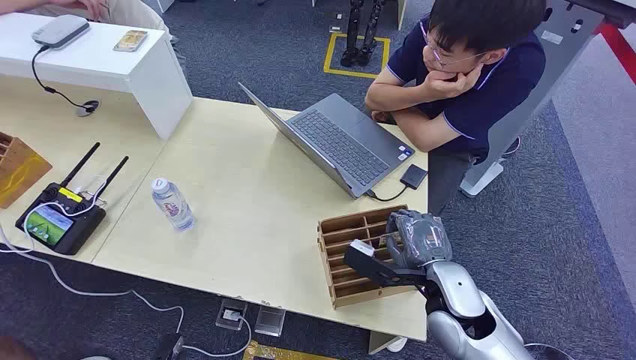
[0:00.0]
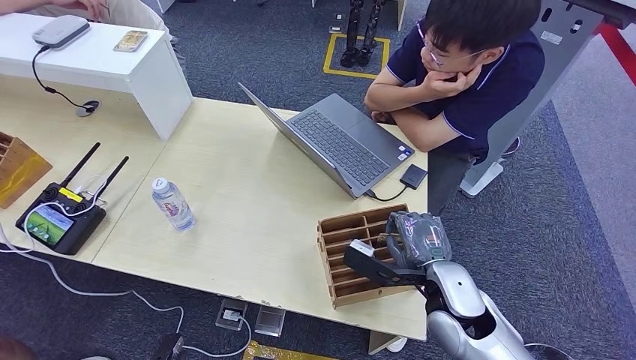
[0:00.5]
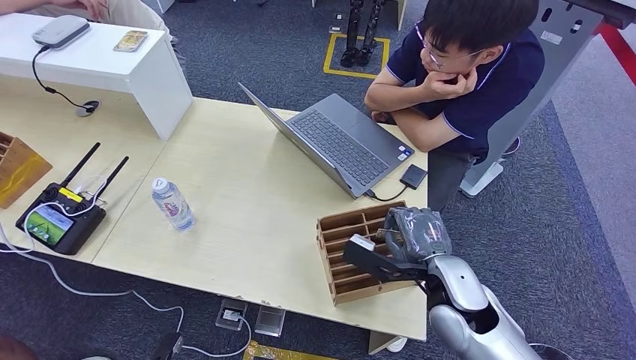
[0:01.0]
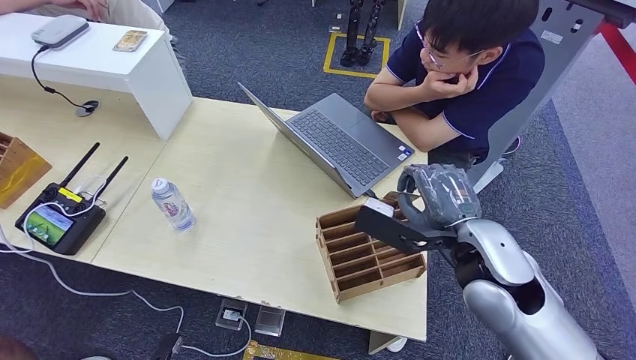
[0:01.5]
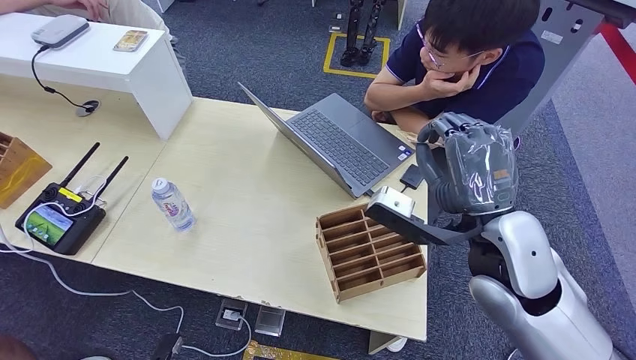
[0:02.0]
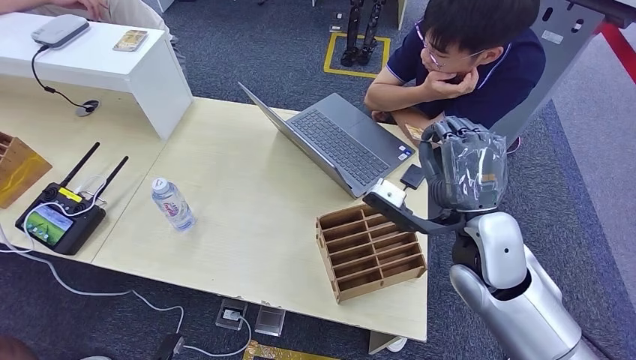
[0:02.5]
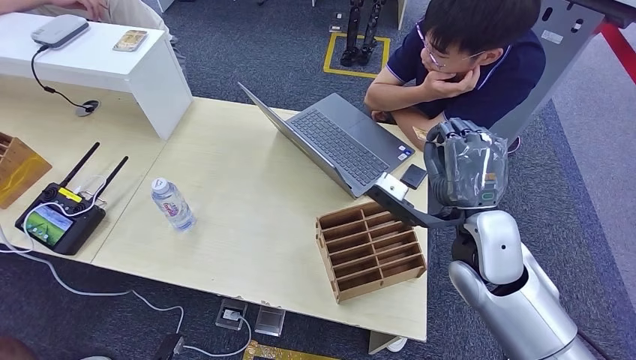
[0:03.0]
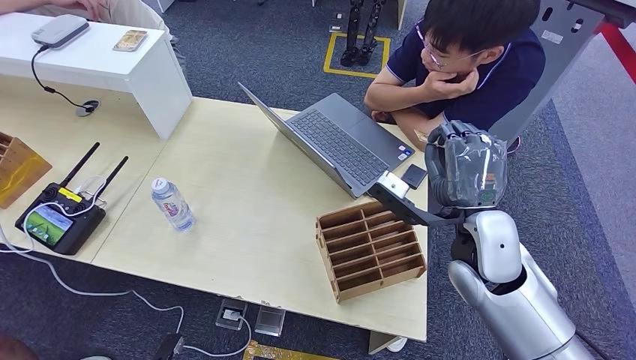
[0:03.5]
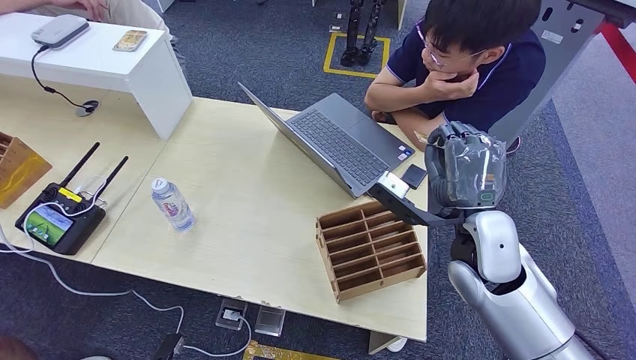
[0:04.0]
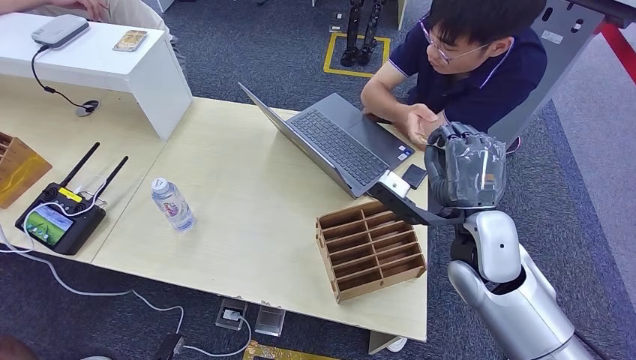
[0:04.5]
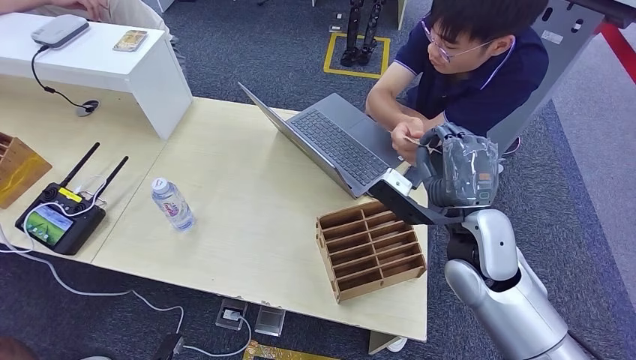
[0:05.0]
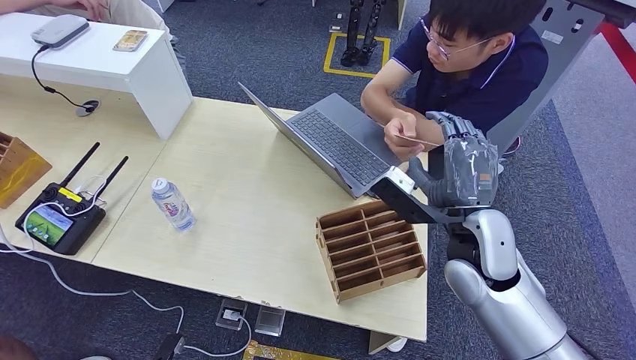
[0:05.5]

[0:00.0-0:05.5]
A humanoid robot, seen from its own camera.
Step, 0:00.0 to 0:01.5: Pick up the room card from the card holder.
Step, 0:02.0 to 0:05.5: Hand the room card to the target.
0:02.0 to 0:03.5: The right hand goes roughly 5 cm downward.
0:03.5 to 0:05.5: There are only small adjustments of the hands.

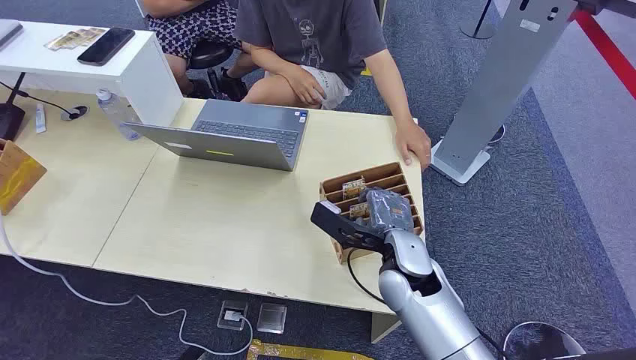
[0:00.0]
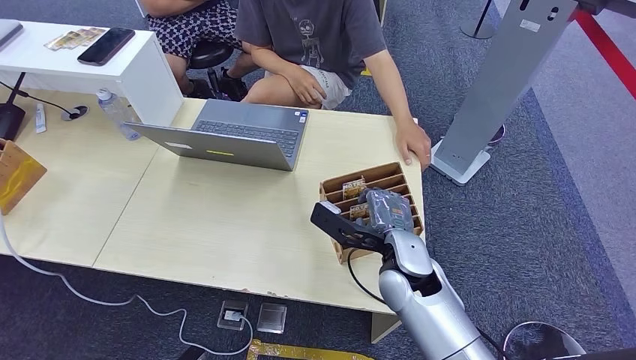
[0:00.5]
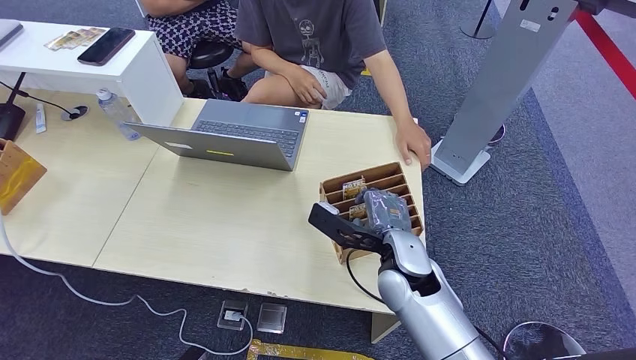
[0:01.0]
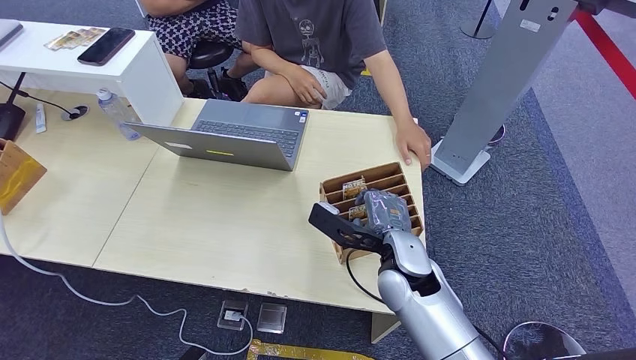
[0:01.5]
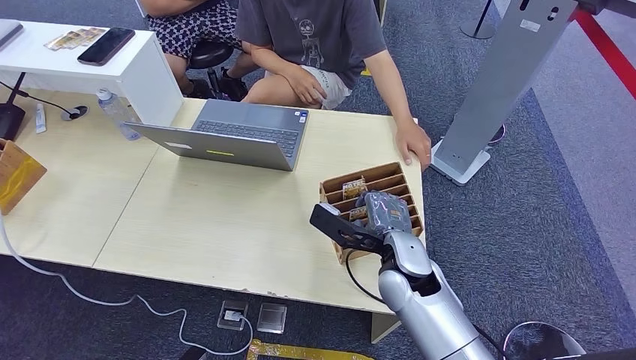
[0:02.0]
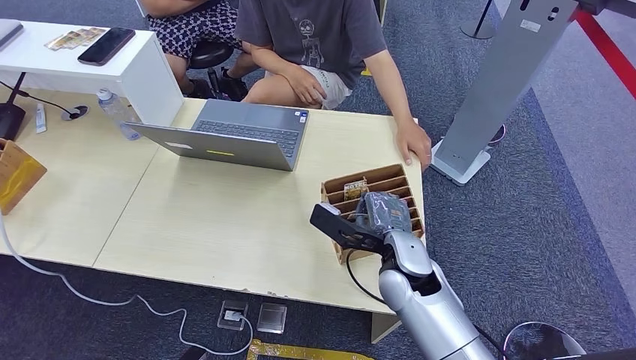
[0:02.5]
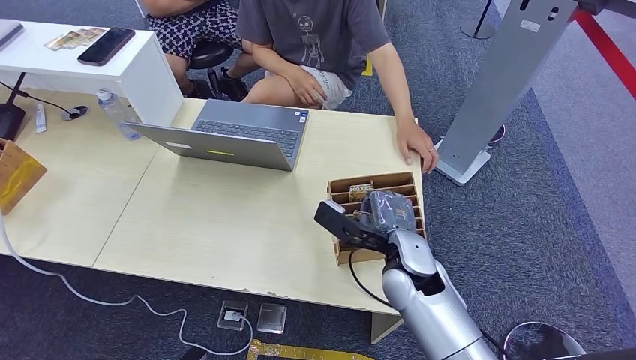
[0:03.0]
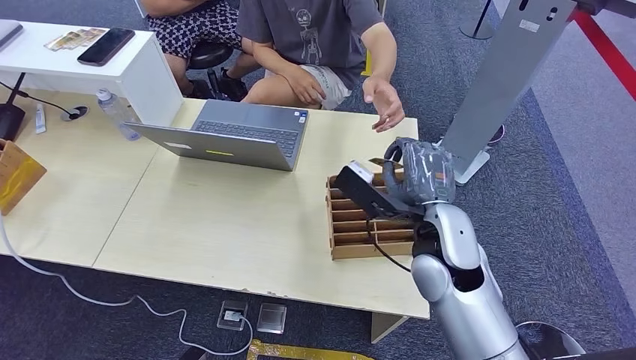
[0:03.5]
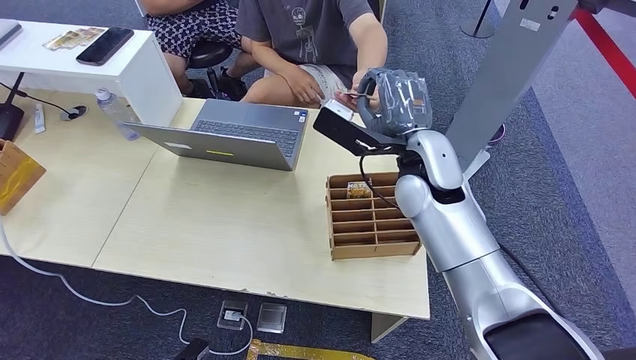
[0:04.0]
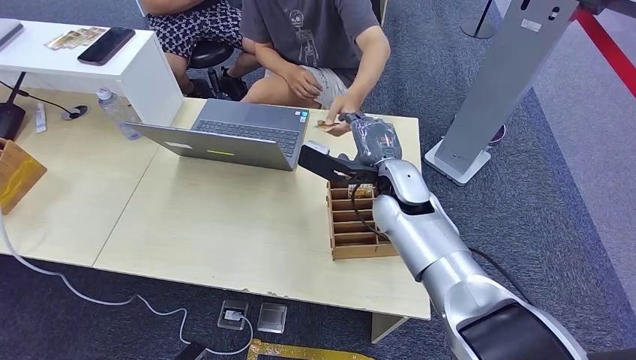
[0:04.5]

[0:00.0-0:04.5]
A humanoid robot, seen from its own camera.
Step, 0:00.0 to 0:03.0: Pick up the room card from the card holder.
Step, 0:03.5 to 0:04.5: Hand the room card to the target.
0:02.0 to 0:04.5: The right hand travels forward and upward by some 15 cm.

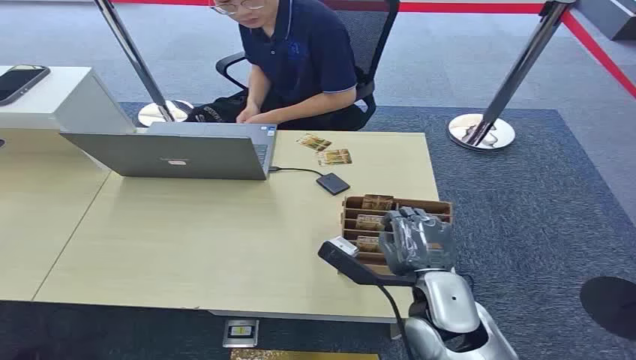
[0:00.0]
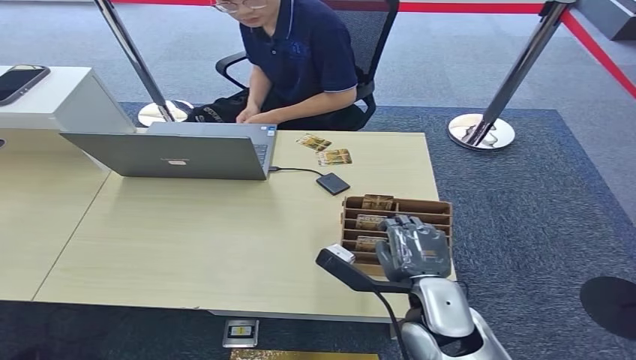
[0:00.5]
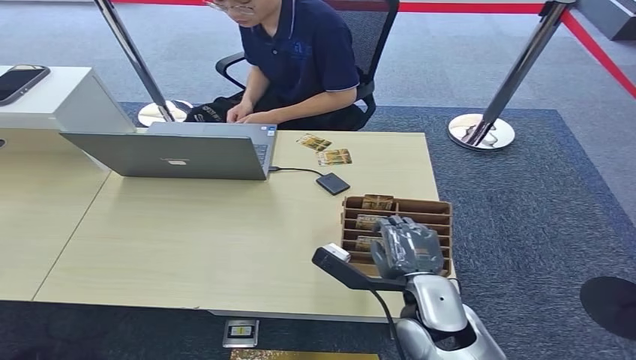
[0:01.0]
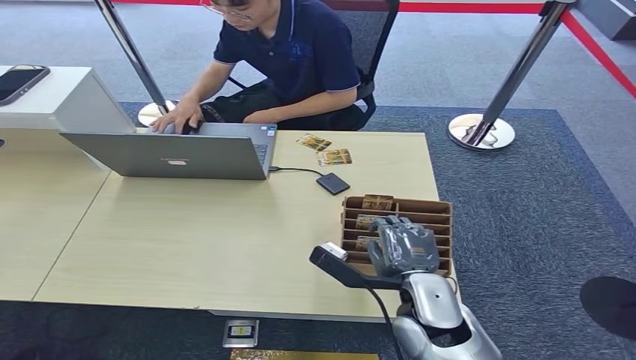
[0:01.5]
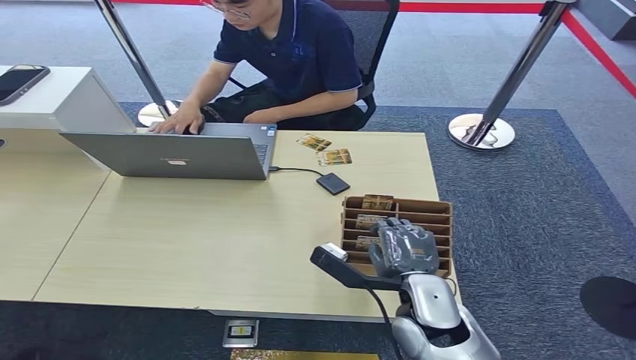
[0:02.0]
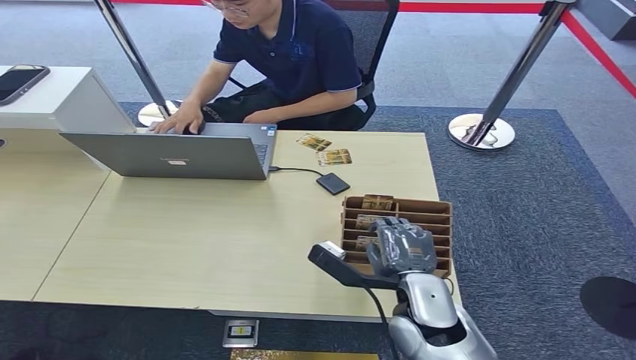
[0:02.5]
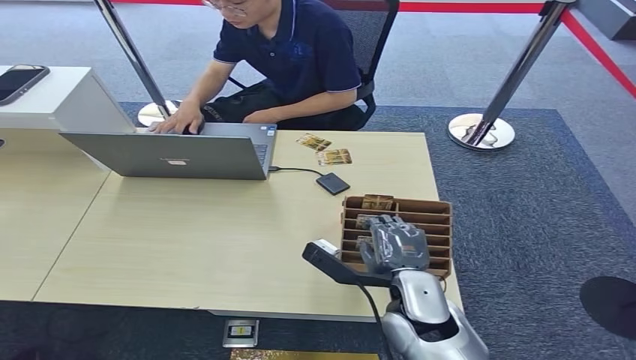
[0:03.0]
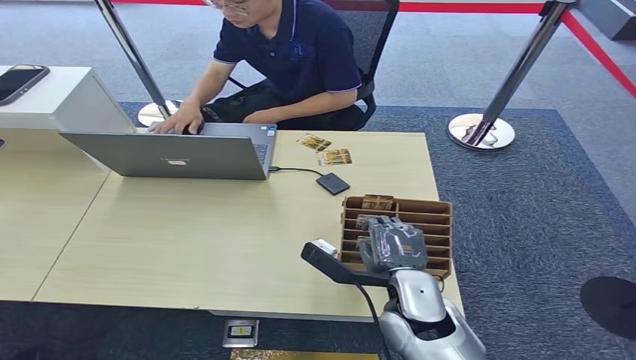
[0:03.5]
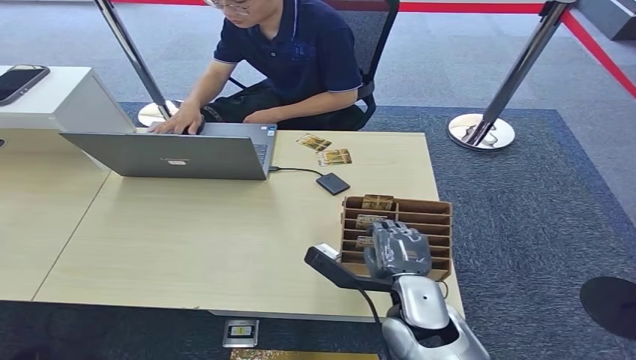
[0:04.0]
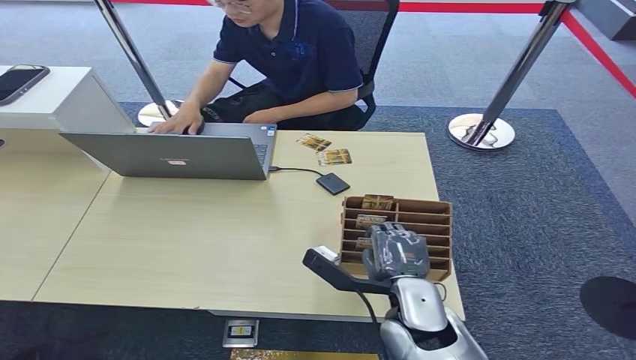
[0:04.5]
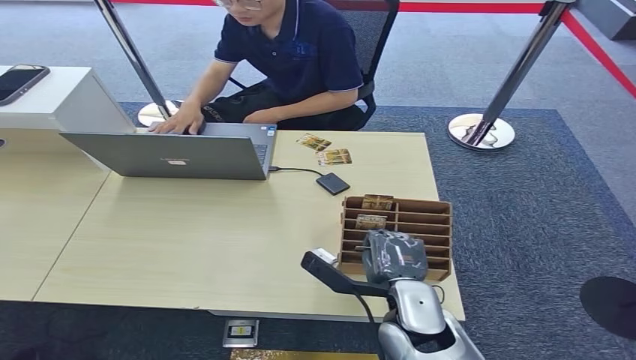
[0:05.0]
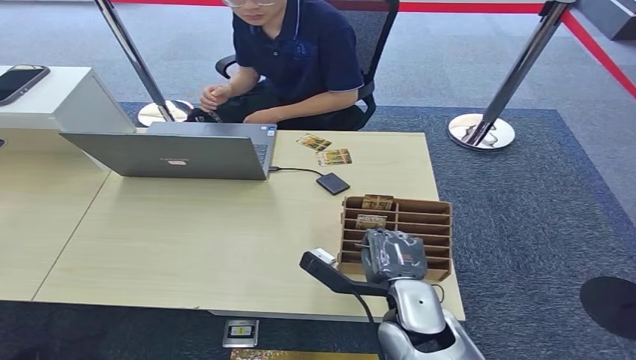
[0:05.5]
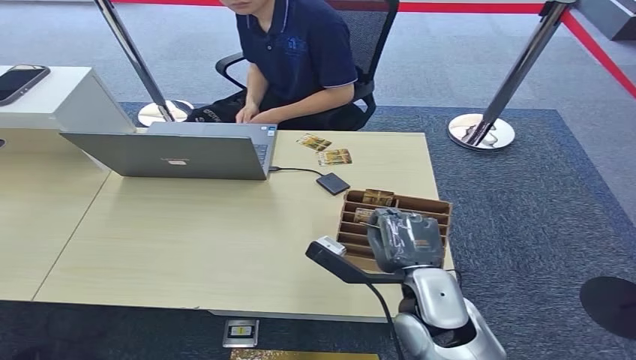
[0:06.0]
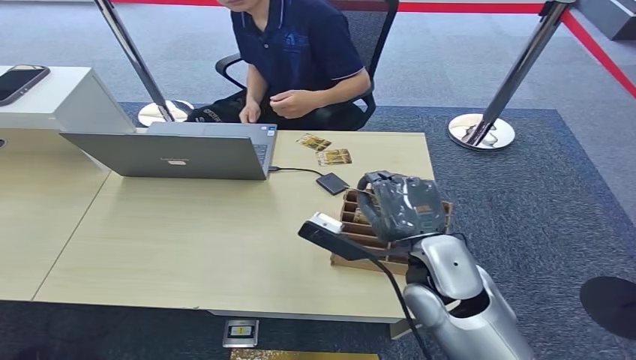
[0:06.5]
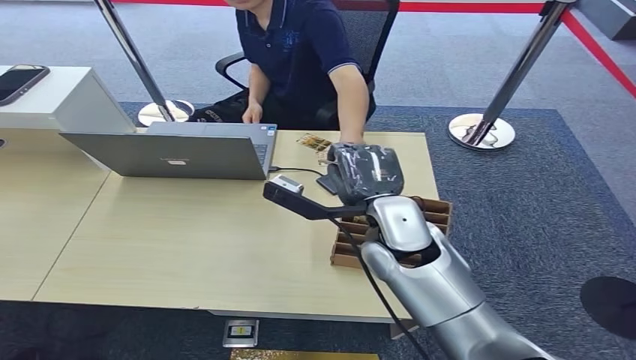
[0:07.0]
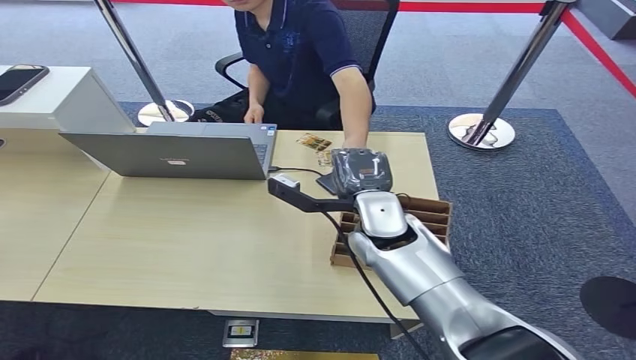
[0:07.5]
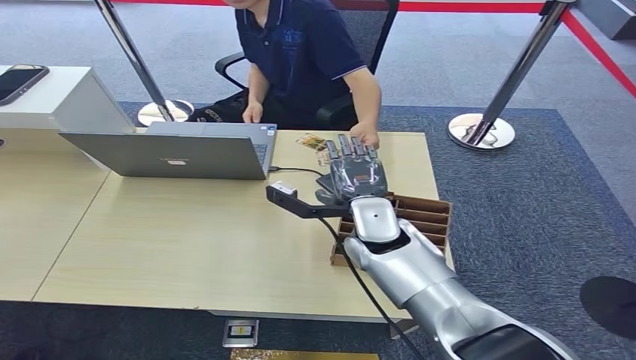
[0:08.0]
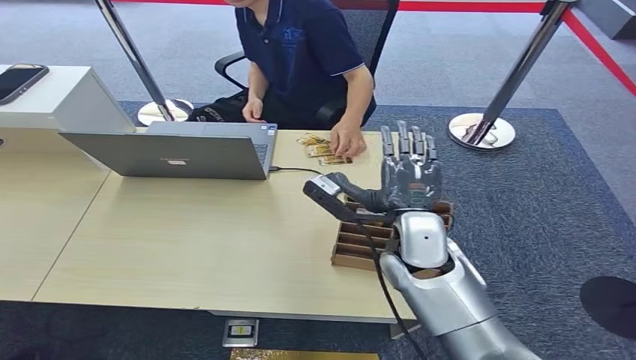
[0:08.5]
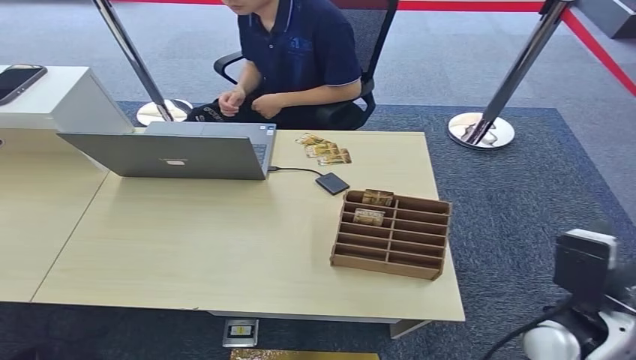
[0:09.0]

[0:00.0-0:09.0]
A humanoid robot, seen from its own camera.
Step, 0:00.0 to 0:05.5: Pick up the room card from the card holder.
Step, 0:06.0 to 0:09.0: Hand the room card to the target.
0:02.0 to 0:04.5: Neither hand changes place.
0:04.5 to 0:07.0: The right hand travels forward and upward by approximately 15 cm.
0:07.0 to 0:09.0: The right hand heads to the right and backward, covering some 20 cm.
